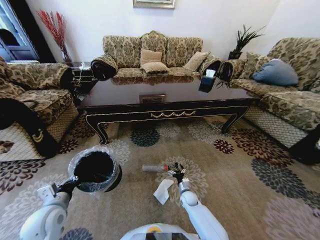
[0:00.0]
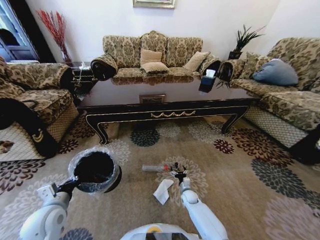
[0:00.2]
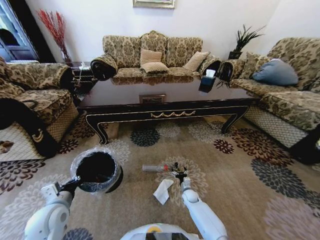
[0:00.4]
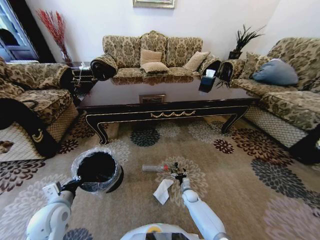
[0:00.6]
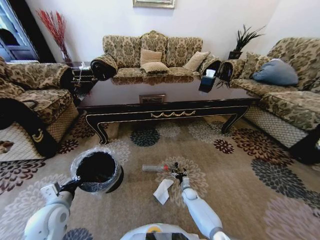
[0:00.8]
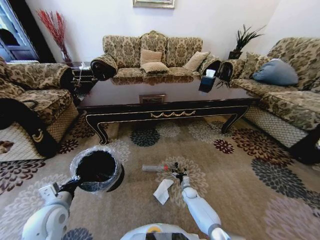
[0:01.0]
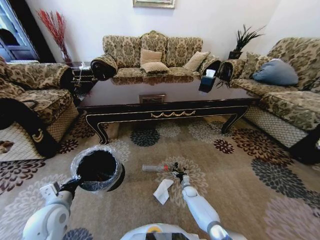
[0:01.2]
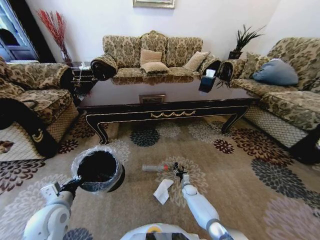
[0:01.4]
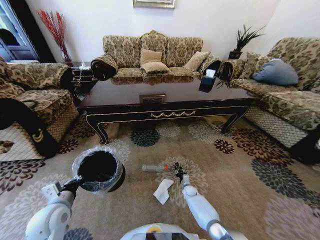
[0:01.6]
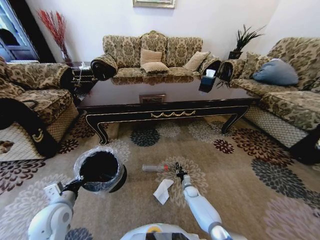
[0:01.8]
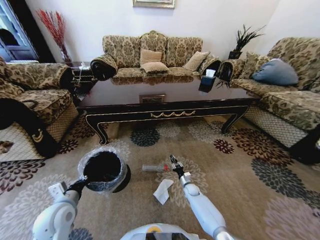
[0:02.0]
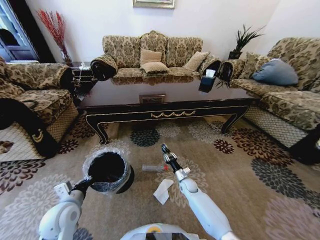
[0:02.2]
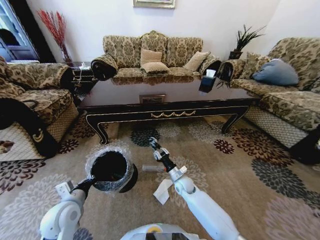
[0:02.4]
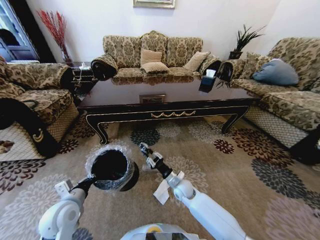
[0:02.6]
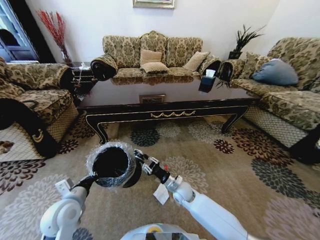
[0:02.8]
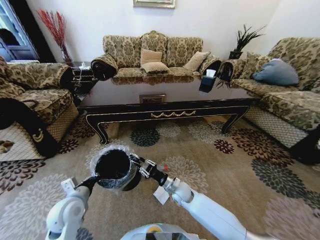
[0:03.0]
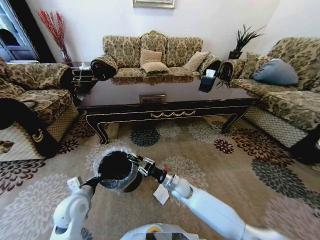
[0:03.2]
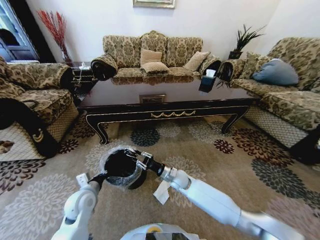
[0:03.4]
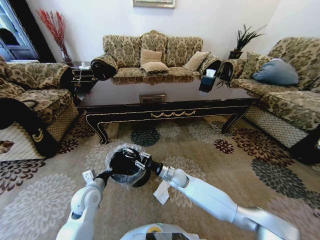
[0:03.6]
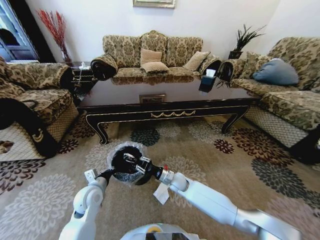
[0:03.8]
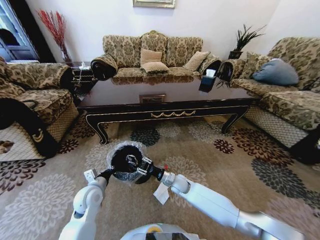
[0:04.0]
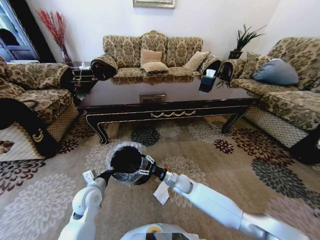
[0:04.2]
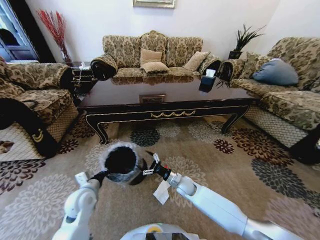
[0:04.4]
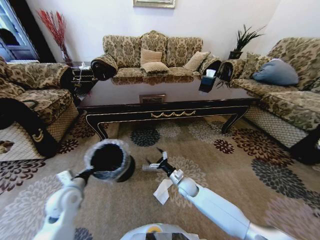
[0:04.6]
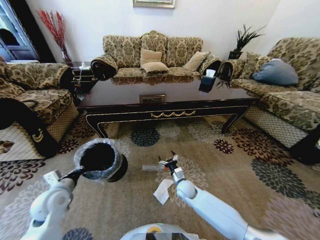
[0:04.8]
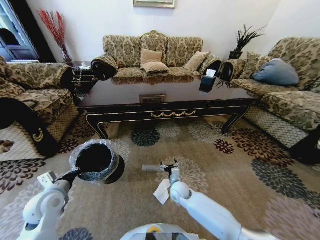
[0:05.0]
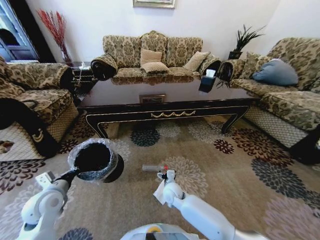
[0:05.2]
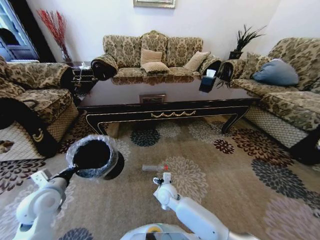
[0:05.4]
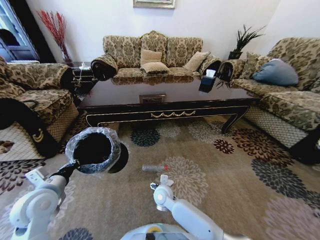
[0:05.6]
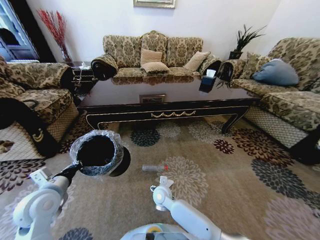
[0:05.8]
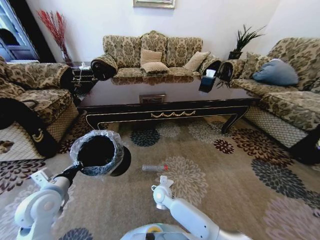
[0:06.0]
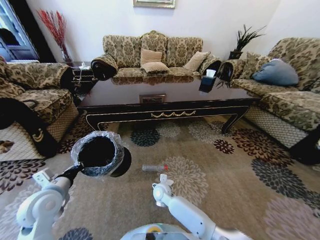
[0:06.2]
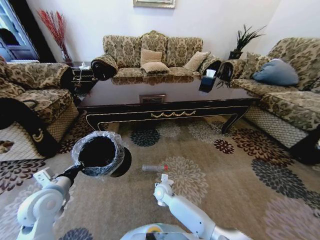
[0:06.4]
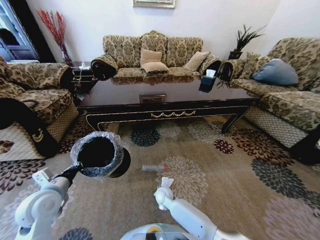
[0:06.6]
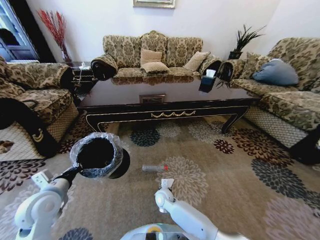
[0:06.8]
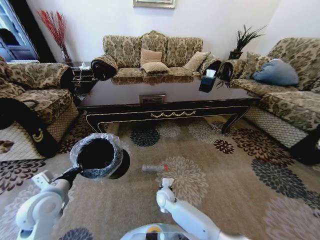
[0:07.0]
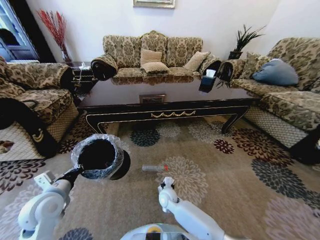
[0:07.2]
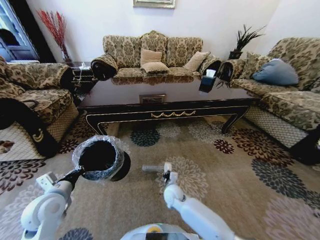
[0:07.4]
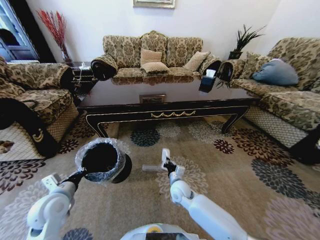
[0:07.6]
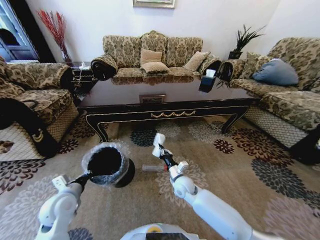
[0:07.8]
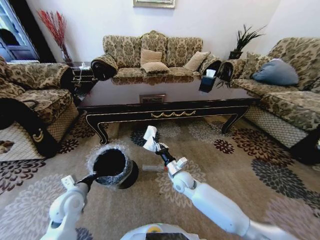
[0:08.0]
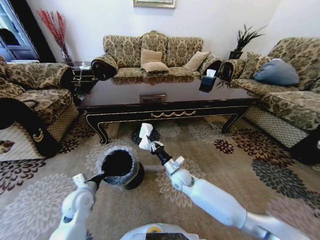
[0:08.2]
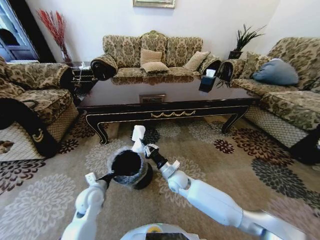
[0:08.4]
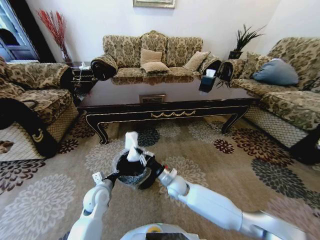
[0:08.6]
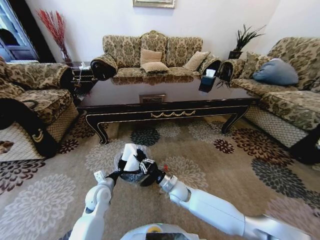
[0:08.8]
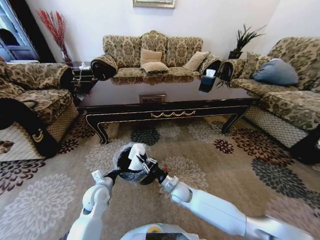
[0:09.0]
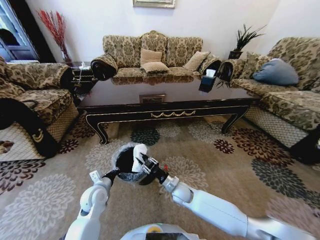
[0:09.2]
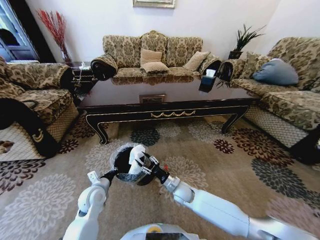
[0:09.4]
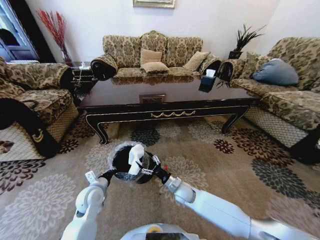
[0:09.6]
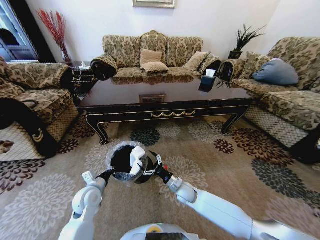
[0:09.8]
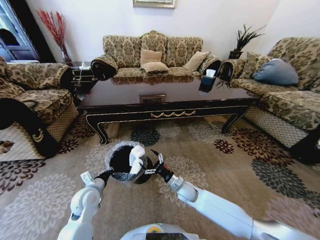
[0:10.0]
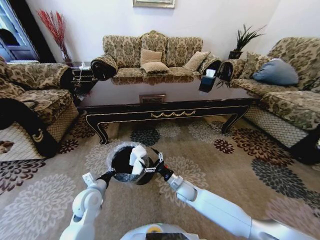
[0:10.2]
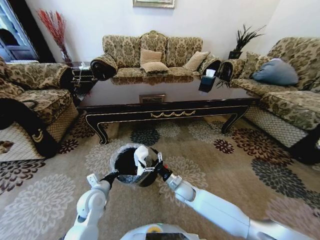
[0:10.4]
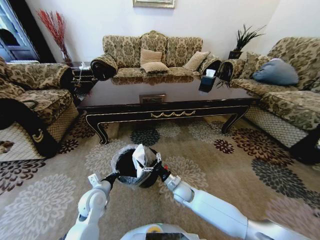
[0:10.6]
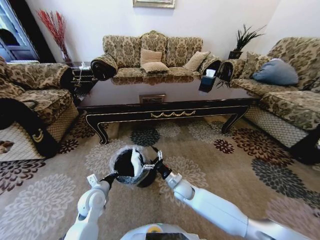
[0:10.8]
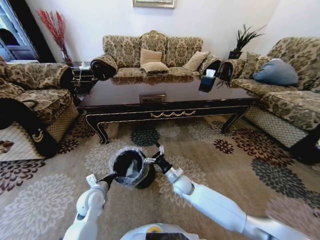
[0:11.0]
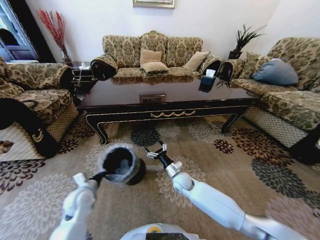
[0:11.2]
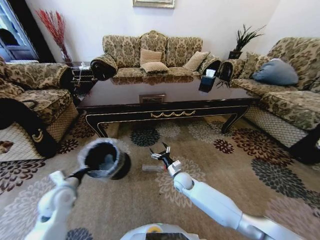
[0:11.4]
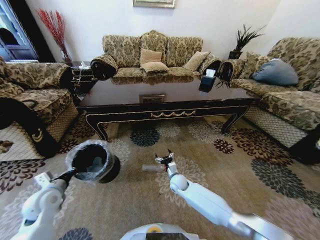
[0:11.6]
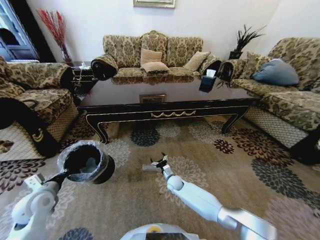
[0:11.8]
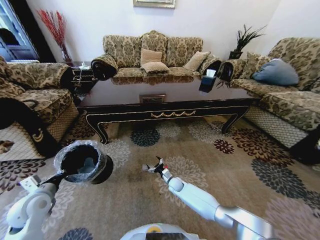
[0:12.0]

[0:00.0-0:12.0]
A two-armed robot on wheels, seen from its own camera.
Task of the whole recording: Move to the front of the table and pick up the trash from the floor, then place it into the trash bin.
0:00.0 to 0:01.6: The right gripper shifts approximately 5 cm forward, and closes its fingers.
0:01.6 to 0:03.0: The right gripper moves upward and to the left, about 25 cm.
0:03.0 to 0:04.4: The left gripper changes place by roughly 5 cm; the right gripper opens its fingers.
0:04.4 to 0:06.0: The left gripper moves upward and to the left, approximately 10 cm; the right gripper moves to the left, roughly 10 cm.
0:06.0 to 0:07.6: The right gripper goes about 10 cm to the right, and closes its fingers.
0:07.6 to 0:09.0: The left gripper shifts approximately 15 cm to the right, downward and forward.
0:09.0 to 0:10.4: The right gripper opens.
0:10.4 to 0:12.0: The right gripper shifts approximately 10 cm downward and forward. Meanwhile the left gripper is displaced to the left by roughly 20 cm.

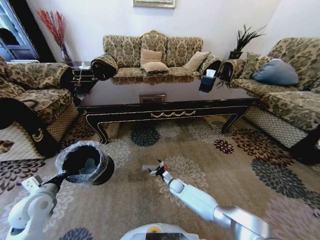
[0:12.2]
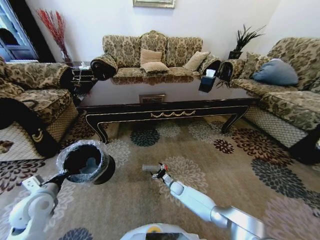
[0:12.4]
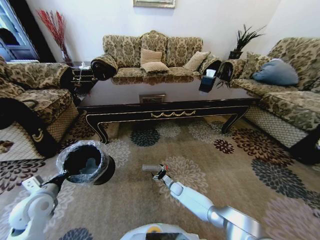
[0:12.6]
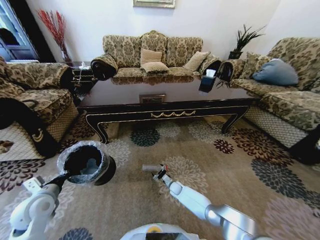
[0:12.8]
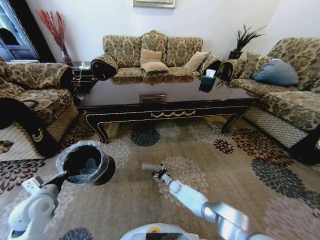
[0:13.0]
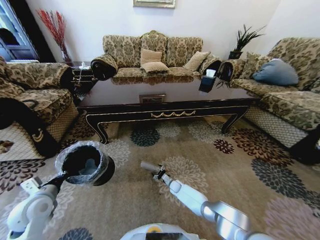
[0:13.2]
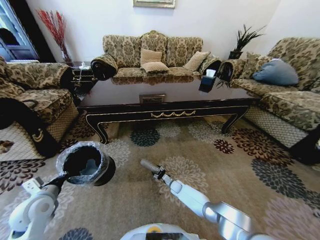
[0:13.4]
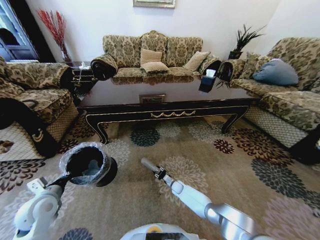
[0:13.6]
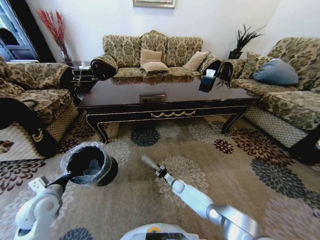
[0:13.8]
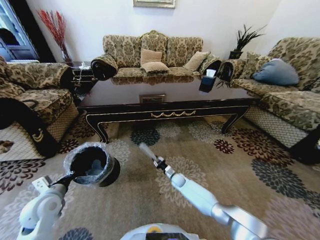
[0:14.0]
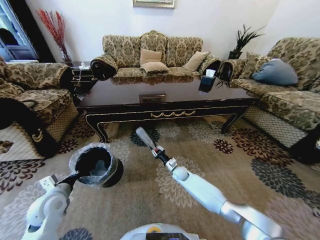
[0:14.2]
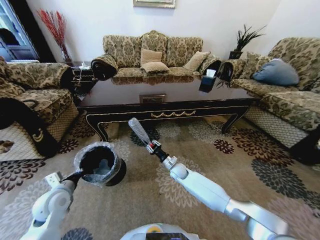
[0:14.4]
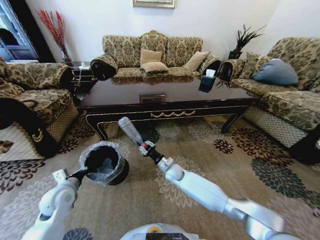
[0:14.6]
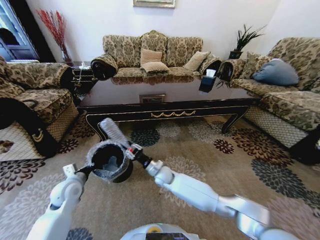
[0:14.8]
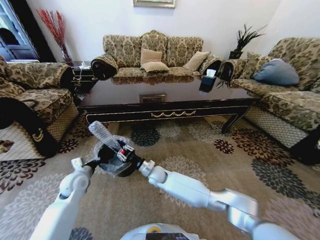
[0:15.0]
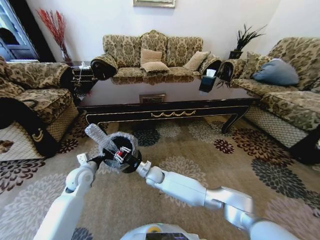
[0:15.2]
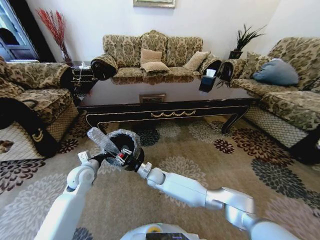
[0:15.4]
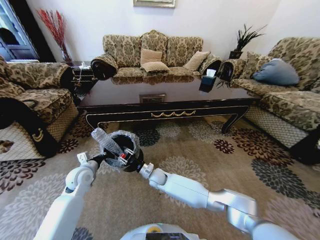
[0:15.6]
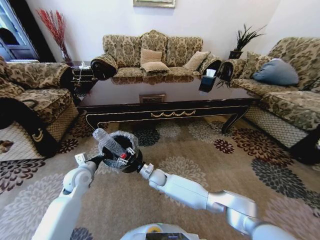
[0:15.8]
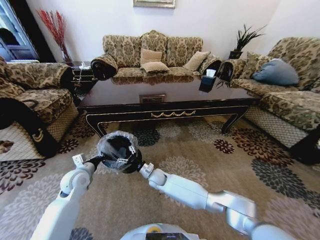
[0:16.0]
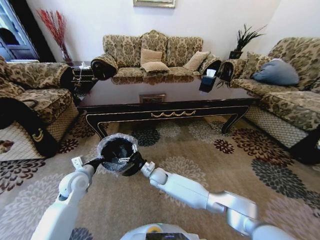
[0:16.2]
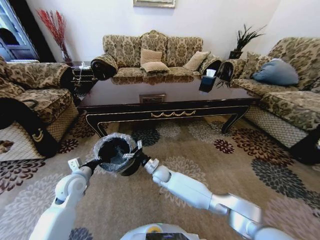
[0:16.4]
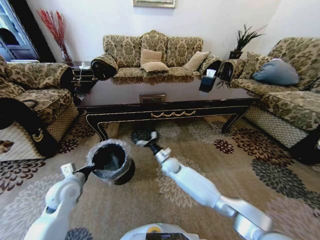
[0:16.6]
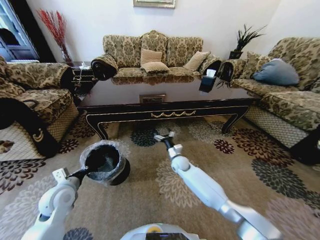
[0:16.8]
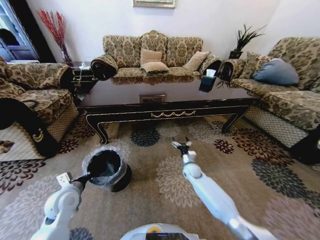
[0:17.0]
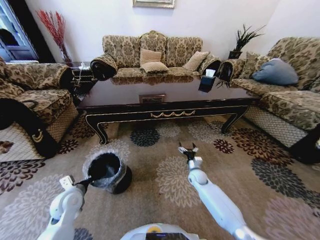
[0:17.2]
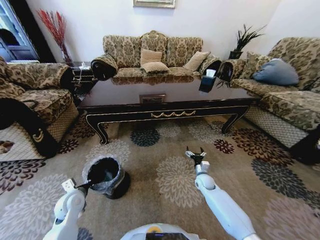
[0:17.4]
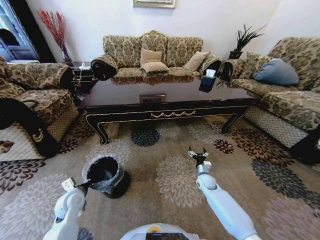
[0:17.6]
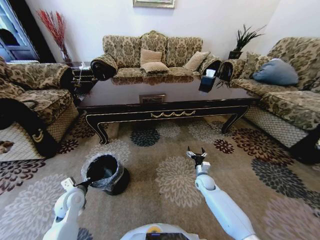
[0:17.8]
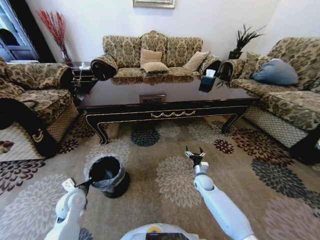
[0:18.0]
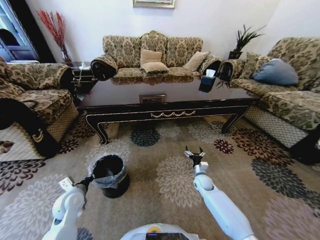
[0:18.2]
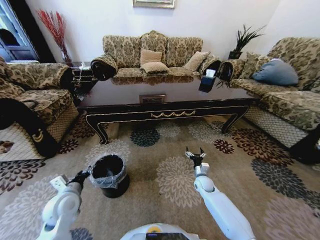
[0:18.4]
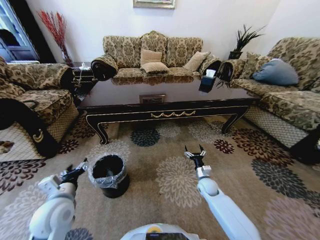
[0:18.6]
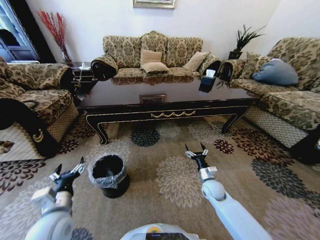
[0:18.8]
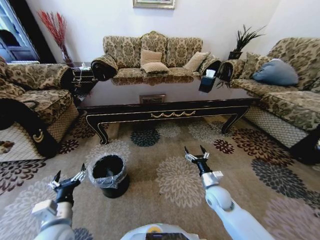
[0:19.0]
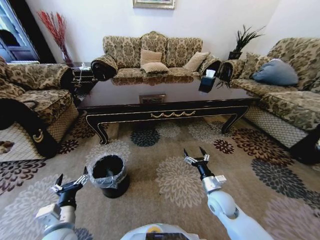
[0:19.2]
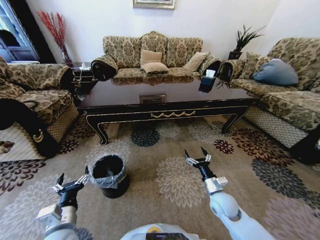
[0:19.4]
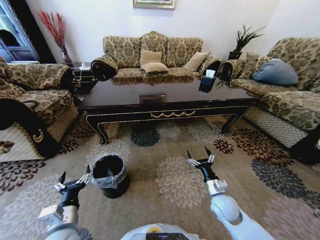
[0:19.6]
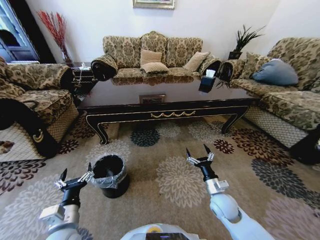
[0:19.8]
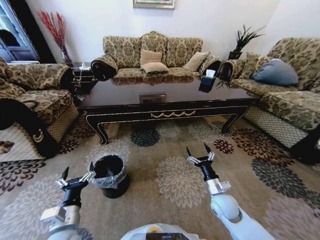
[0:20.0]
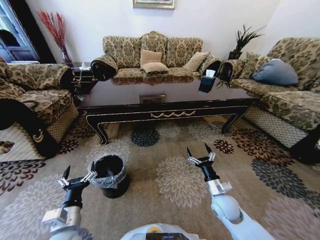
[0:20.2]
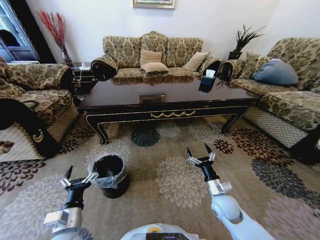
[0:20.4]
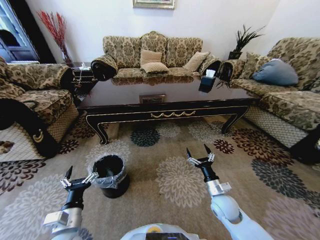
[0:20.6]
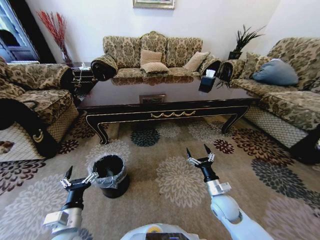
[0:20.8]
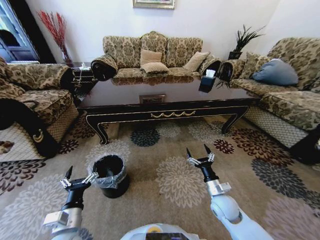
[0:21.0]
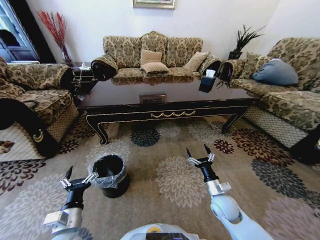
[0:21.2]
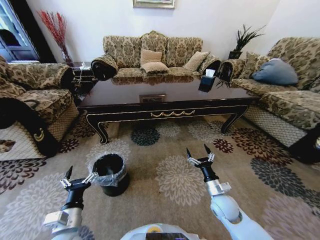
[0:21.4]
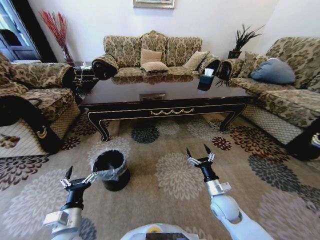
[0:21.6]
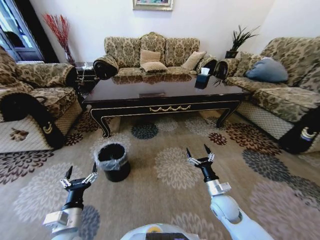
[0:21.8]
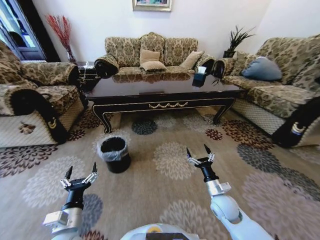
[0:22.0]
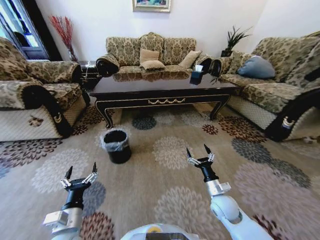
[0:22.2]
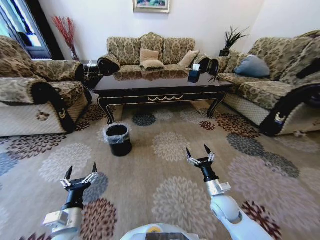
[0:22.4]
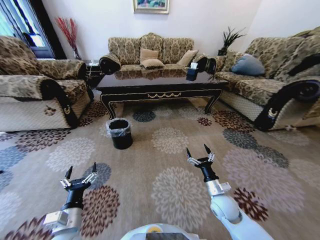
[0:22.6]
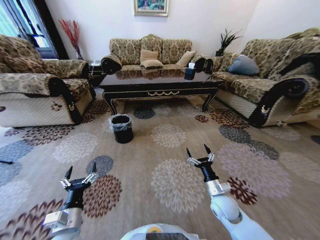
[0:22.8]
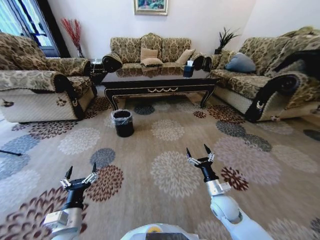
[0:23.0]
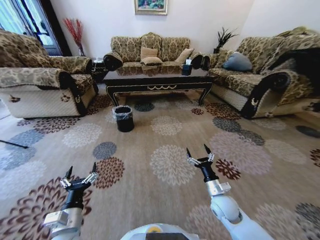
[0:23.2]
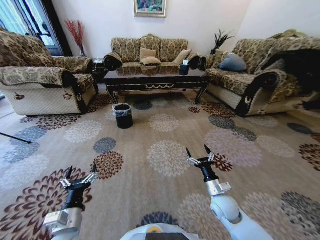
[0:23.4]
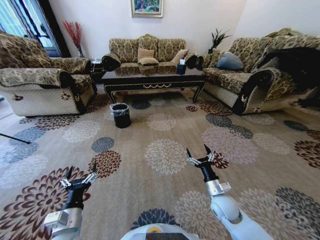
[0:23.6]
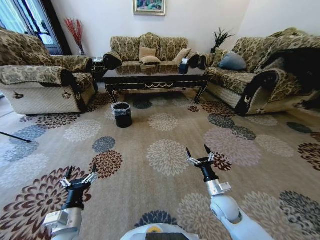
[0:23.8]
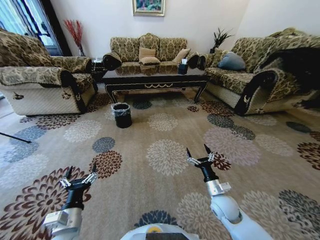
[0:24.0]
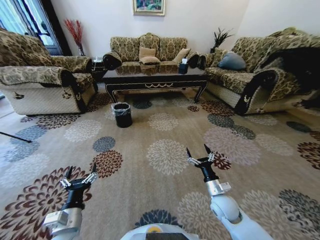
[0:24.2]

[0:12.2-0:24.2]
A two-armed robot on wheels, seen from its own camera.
Task of the whole recording: Move to the front of the table and pick up the trash from the floor, then place it into the trash bin.
0:12.2 to 0:13.8: The right gripper shifts by roughly 5 cm, and closes up.
0:13.8 to 0:15.2: The right gripper goes some 25 cm upward and to the left. The left gripper travels forward and to the right by some 15 cm.
0:15.2 to 0:16.6: The left gripper heads backward, covering some 5 cm; the right gripper is displaced to the right and forward by some 10 cm, and opens its fingers.
0:16.6 to 0:18.2: The left gripper is displaced downward by roughly 5 cm; the right gripper travels to the right and downward by about 20 cm.
0:18.2 to 0:19.8: The right gripper moves backward and upward, some 15 cm; the left gripper goes roughly 15 cm backward and to the right, and opens its fingers.
0:19.8 to 0:21.2: The grippers make only small movements.
